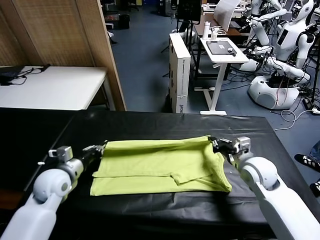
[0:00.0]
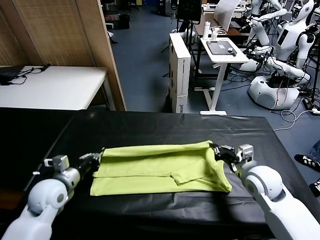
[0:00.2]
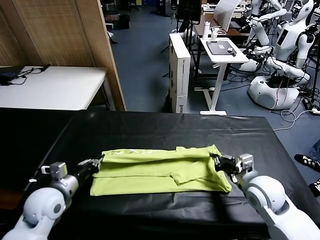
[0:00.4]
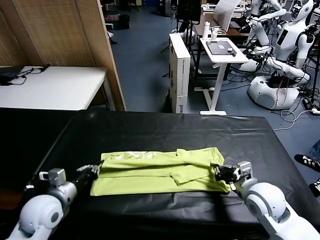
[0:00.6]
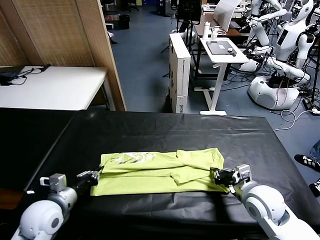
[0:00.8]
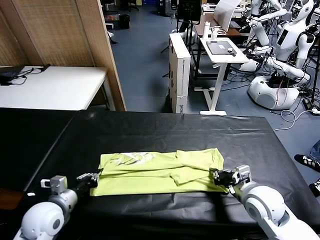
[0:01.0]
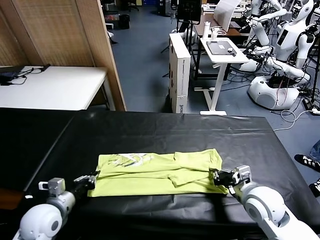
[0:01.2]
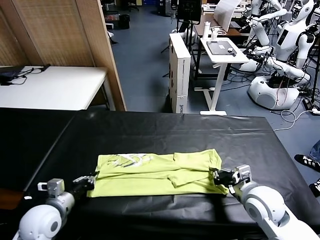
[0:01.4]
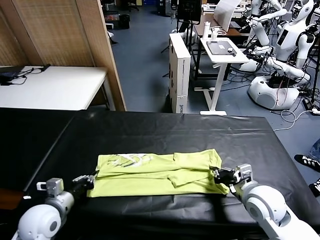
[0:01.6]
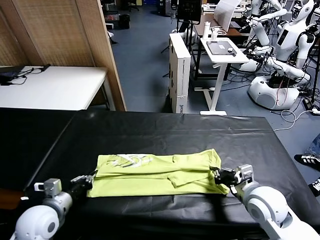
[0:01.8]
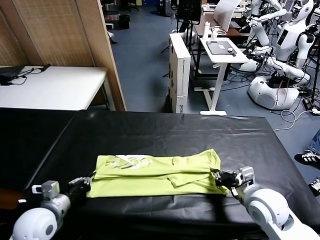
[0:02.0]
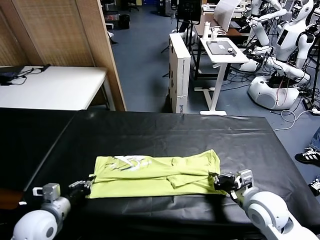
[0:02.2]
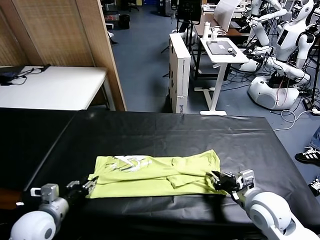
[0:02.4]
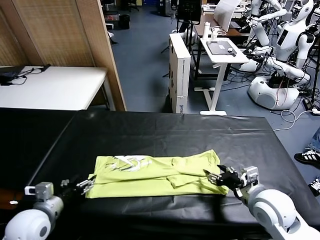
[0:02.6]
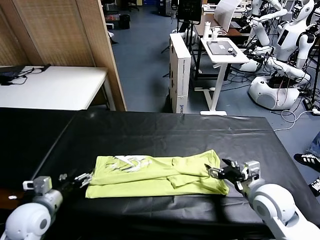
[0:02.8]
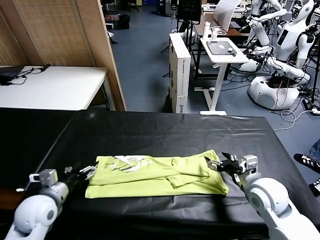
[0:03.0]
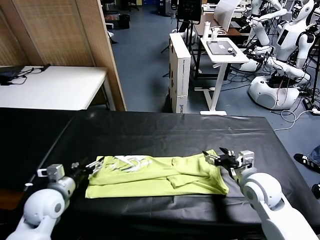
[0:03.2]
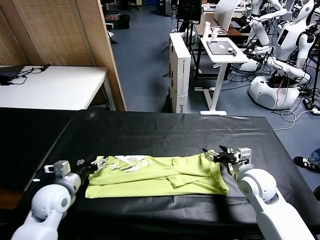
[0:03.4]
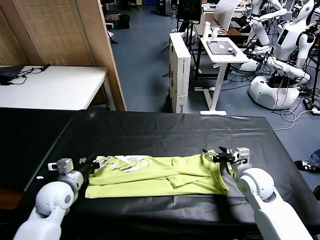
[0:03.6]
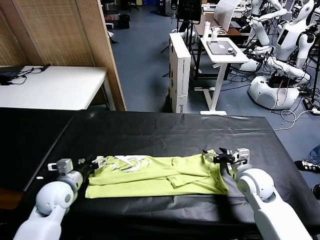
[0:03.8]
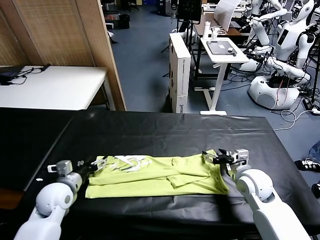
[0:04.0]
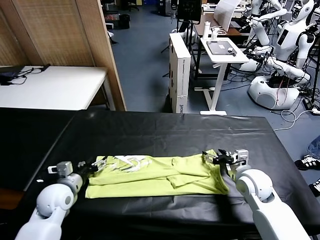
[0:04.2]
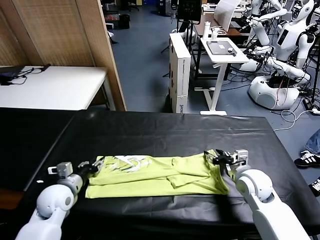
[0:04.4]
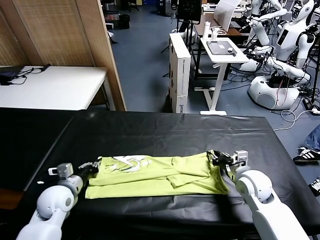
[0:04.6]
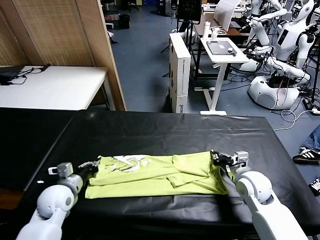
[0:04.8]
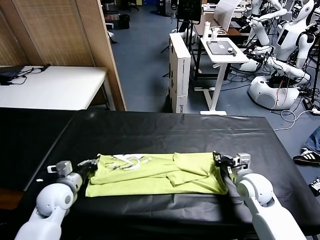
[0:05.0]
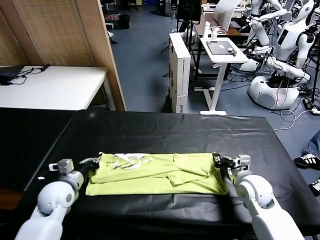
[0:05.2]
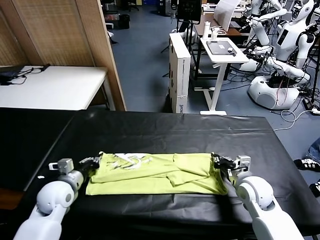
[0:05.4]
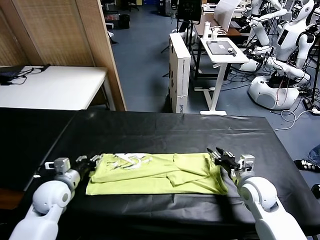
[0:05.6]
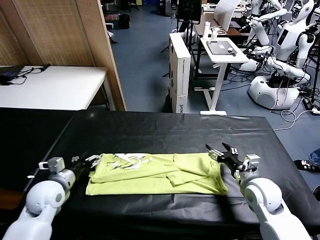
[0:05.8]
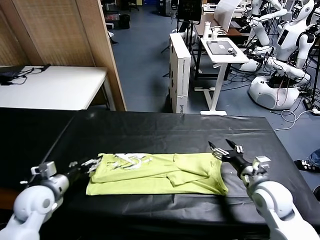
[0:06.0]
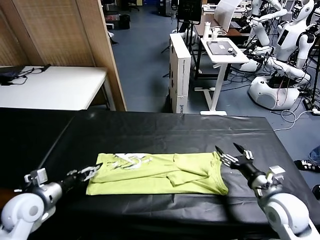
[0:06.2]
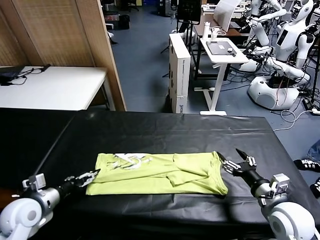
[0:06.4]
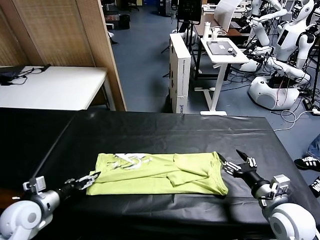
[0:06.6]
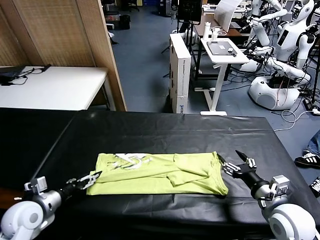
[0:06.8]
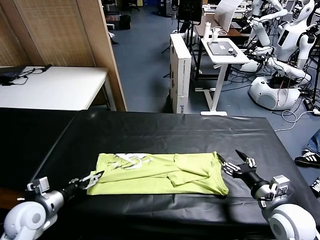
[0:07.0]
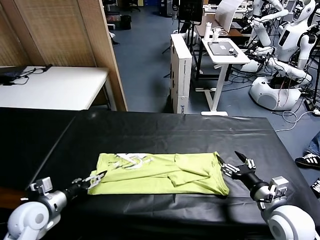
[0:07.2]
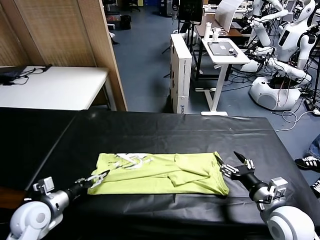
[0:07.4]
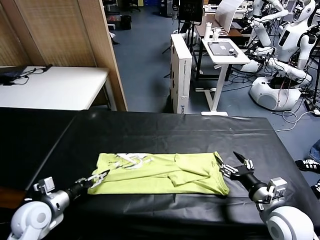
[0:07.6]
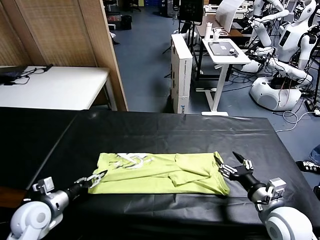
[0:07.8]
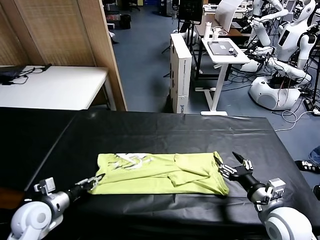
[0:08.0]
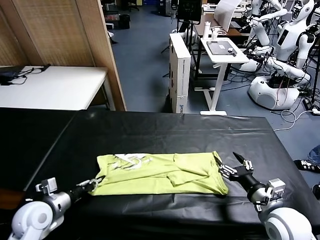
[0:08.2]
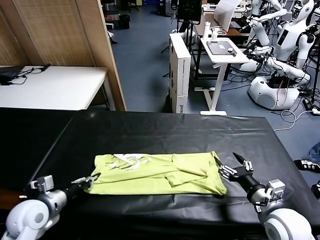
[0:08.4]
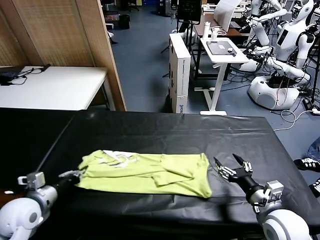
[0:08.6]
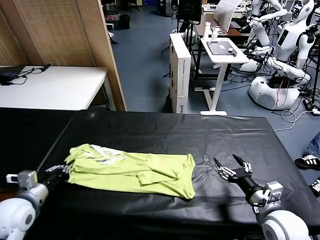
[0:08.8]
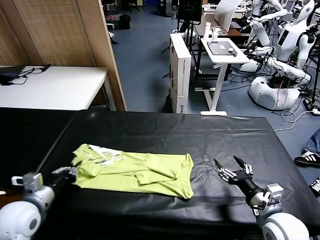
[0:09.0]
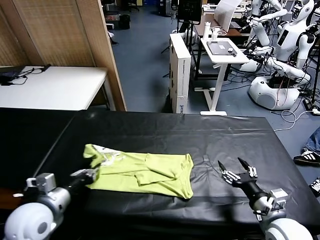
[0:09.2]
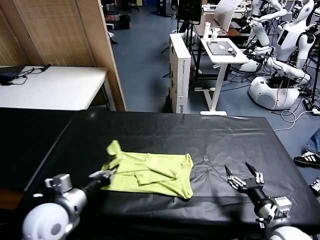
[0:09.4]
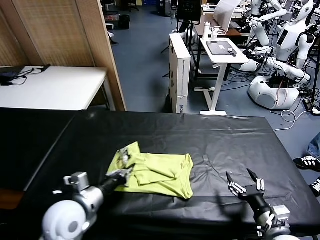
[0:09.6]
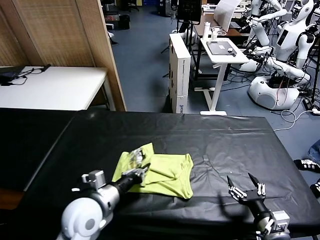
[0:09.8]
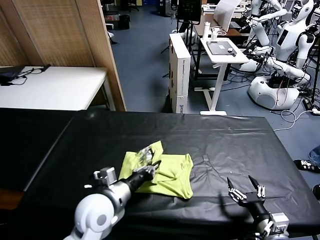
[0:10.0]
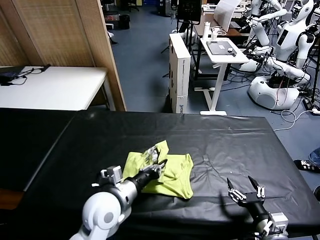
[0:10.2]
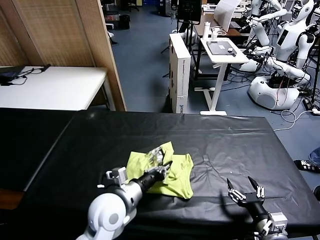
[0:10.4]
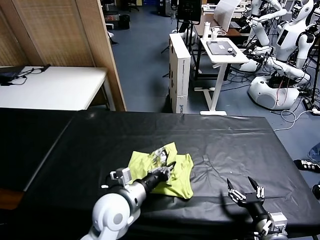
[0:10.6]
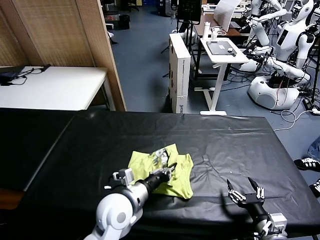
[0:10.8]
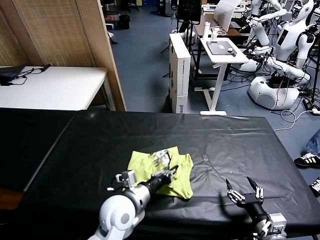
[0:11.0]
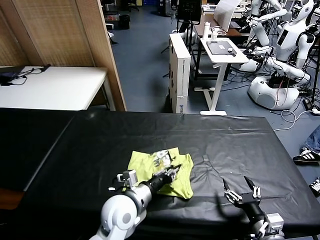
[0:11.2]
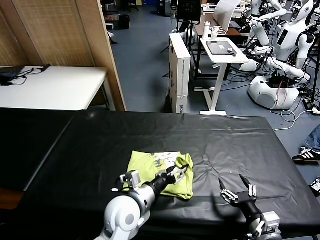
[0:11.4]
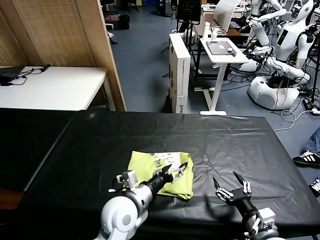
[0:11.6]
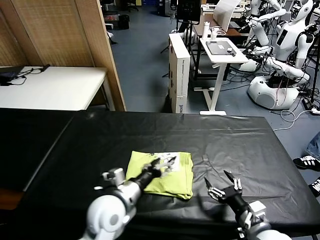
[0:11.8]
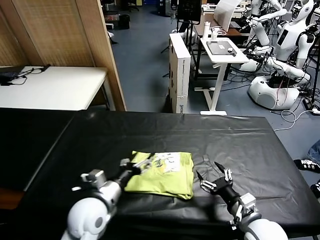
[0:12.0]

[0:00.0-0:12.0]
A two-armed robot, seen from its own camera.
Task of the whole recording: fold and organize the clothes.
Step, 0:00.0 to 0:02.6: use both grippers to drag the upper edge of the fabric backward and fold it over the lower edge.
Step, 0:02.8 to 0:08.0: use the left gripper to clamp the left edge of the fabric.
Step, 0:08.4 to 0:11.4: use the left gripper to drag the left edge of the fabric to the left and folds it over the right edge.
0:00.0 to 0:01.6: Both grippers move backward, roughly 5 cm.
0:01.6 to 0:03.0: The right gripper opens; the left gripper opens its fingers.
0:03.0 to 0:04.4: The left gripper shifts by roughly 5 cm, and closes up. Meanwhile the right gripper shifts by some 5 cm, and closes up.
0:04.4 to 0:06.0: The right gripper shifts about 5 cm backward, and opens. The left gripper ends up about 5 cm from where it was, and opens its fingers.
0:06.0 to 0:07.6: The right gripper moves backward, some 5 cm.
0:07.6 to 0:09.0: The left gripper is displaced upward by about 5 cm, and closes its fingers.
0:09.0 to 0:10.4: The left gripper is displaced to the right by approximately 20 cm. The right gripper is displaced backward and downward by approximately 5 cm.
0:10.4 to 0:12.0: The right gripper shifts roughly 5 cm forward. Meanwhile the left gripper goes some 5 cm to the left, and opens.

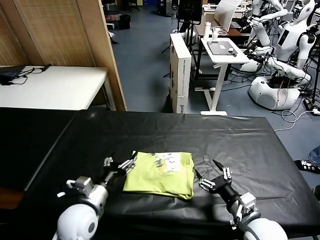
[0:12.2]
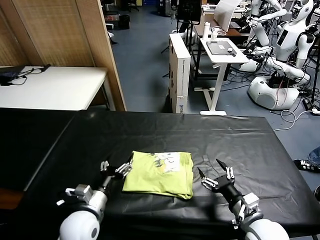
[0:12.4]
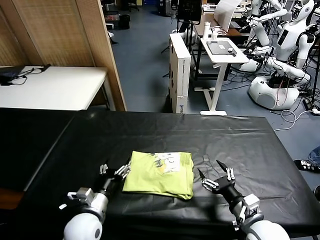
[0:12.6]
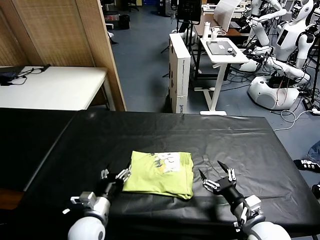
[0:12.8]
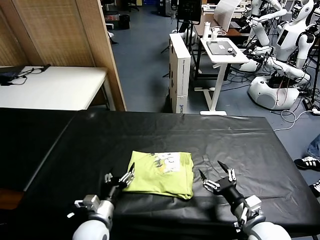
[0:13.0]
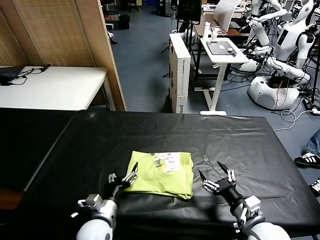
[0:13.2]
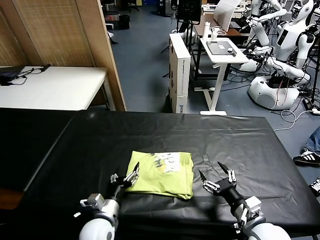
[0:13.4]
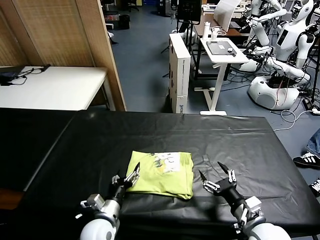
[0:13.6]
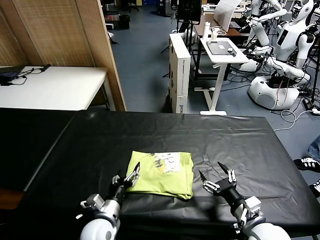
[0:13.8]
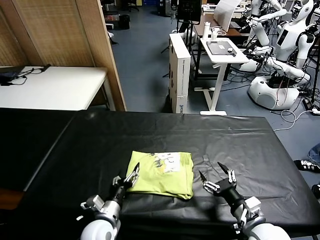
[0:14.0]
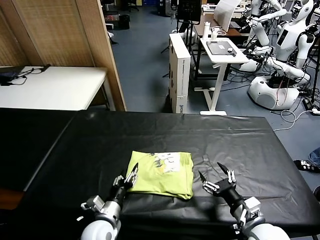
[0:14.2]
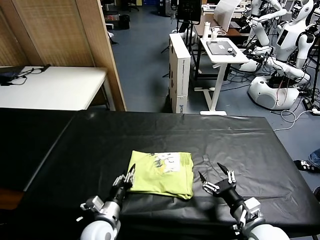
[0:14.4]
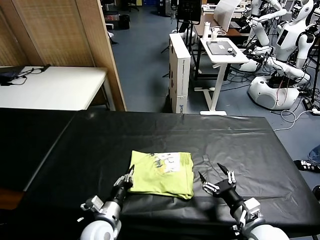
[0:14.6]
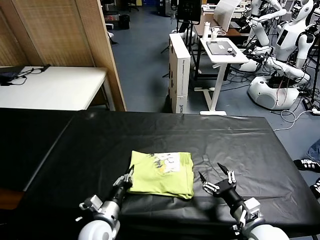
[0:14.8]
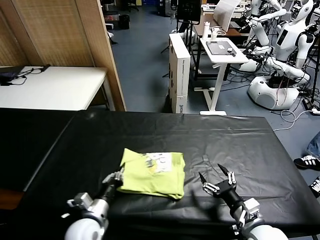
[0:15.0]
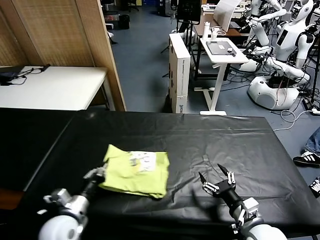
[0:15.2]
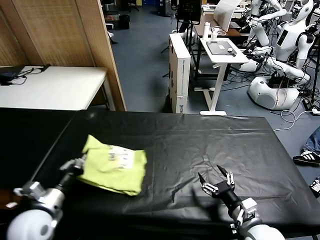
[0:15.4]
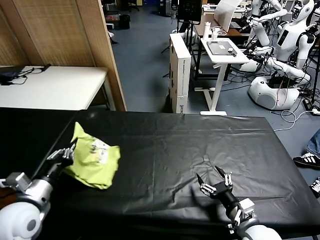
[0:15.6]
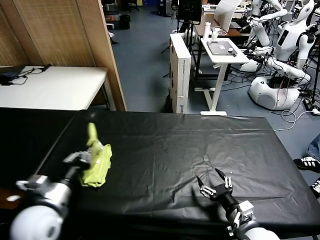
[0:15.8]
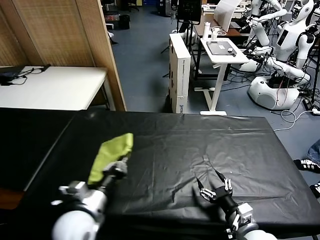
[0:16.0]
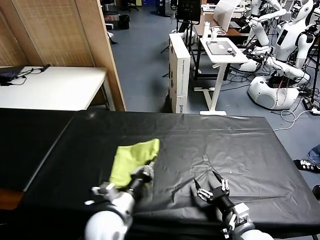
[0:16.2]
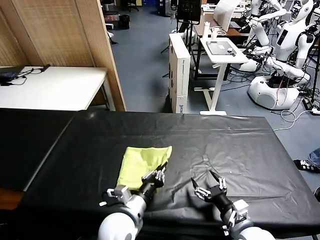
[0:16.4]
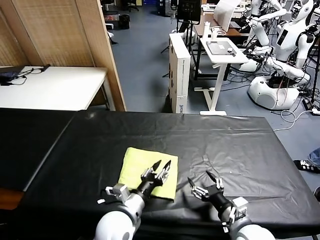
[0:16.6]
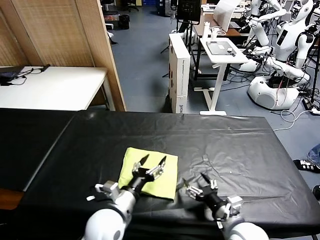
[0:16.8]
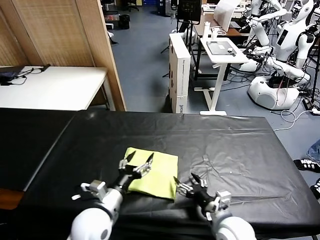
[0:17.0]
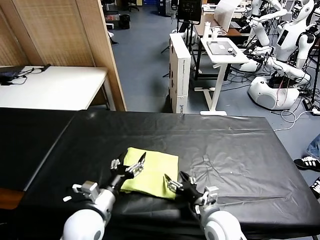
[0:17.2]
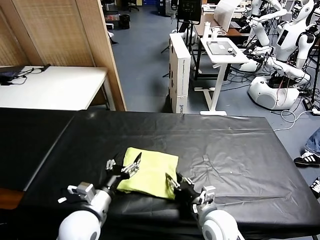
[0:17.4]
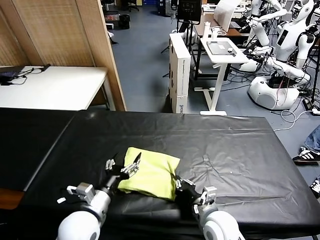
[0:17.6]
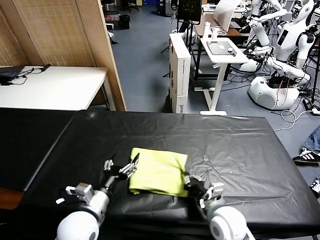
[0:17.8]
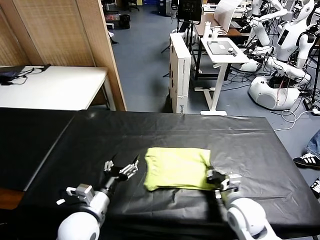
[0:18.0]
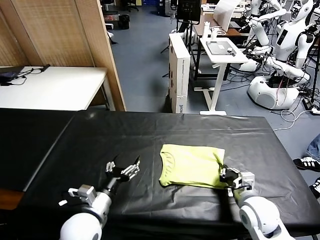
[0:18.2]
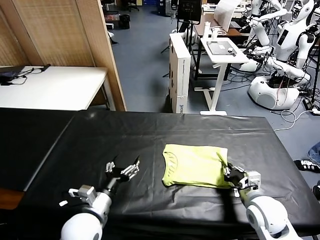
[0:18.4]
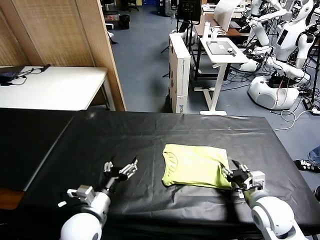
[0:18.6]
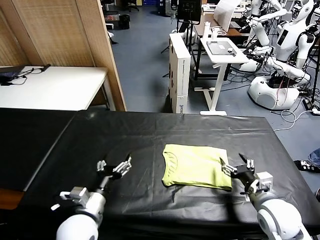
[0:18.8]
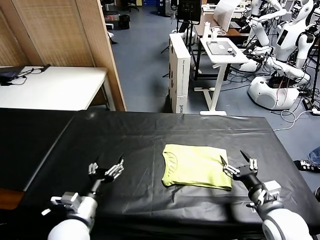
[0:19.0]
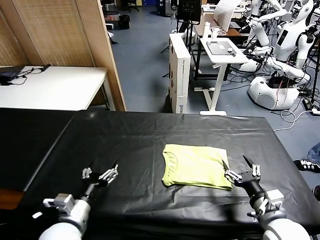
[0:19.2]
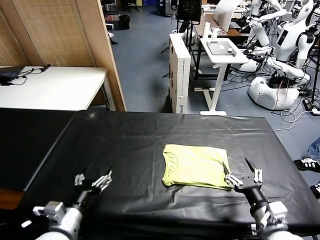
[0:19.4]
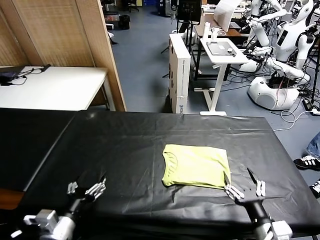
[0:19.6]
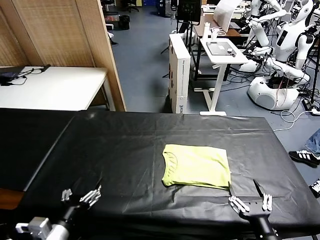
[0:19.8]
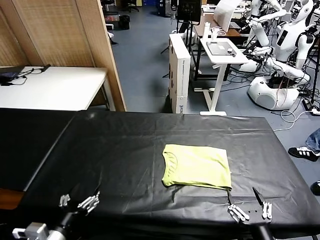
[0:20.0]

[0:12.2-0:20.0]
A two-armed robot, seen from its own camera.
Task of the whole recording: fold and organize the clothes.
Step, 0:12.2 to 0:16.4: Flip the folded clothes over with left gripper.
Step, 0:16.8 to 0:18.6: Drag the clothes to the center of the table.
0:12.2 to 0:13.8: The left gripper shifts roughly 10 cm downward.
0:13.8 to 0:15.4: The left gripper is displaced to the left and upward by about 20 cm, and closes.
0:15.4 to 0:16.8: The left gripper heads to the right, covering approximately 20 cm, and opens.
0:16.8 to 0:18.4: The left gripper shifts roughly 5 cm to the left. Meanwhile the right gripper goes approximately 10 cm forward and to the right, and closes.
0:18.4 to 0:20.0: The right gripper heads backward, covering approximately 20 cm, and opens up, while the left gripper is displaced backward and to the left by approximately 15 cm.
